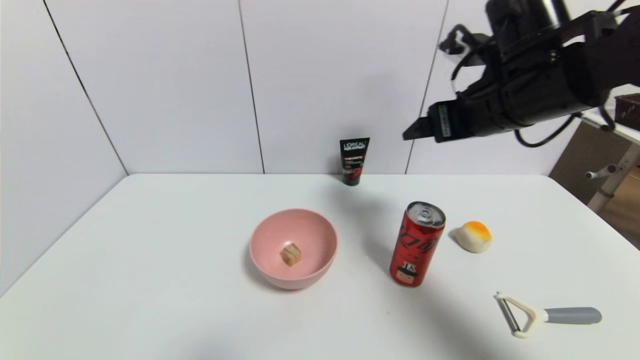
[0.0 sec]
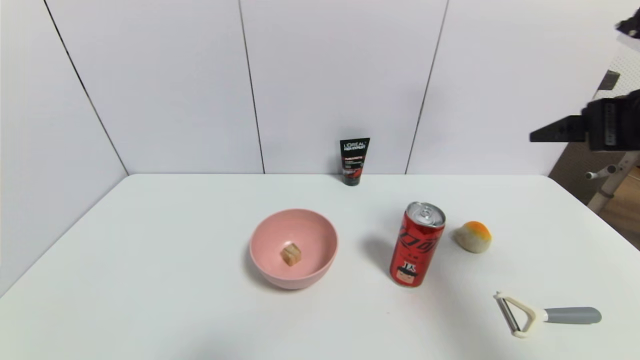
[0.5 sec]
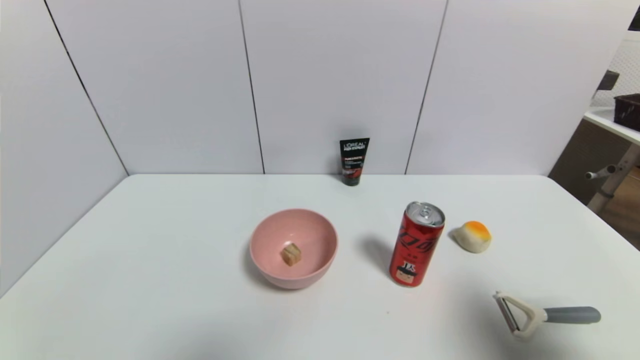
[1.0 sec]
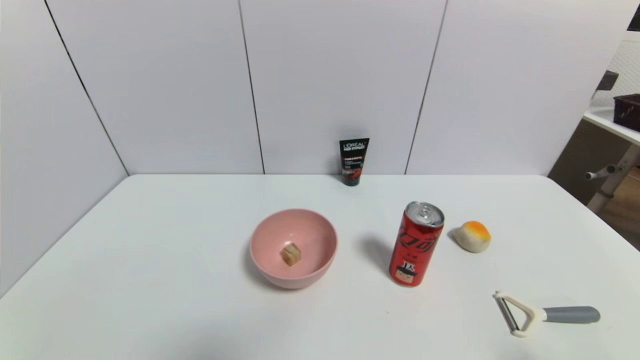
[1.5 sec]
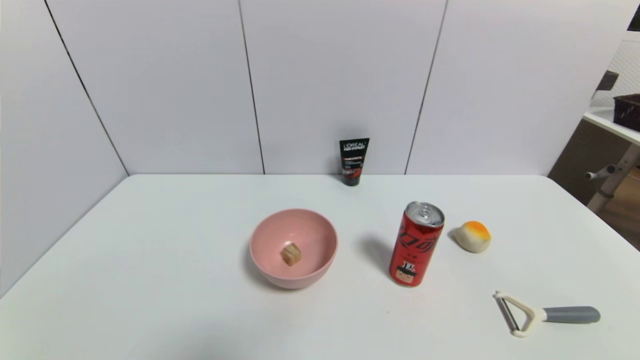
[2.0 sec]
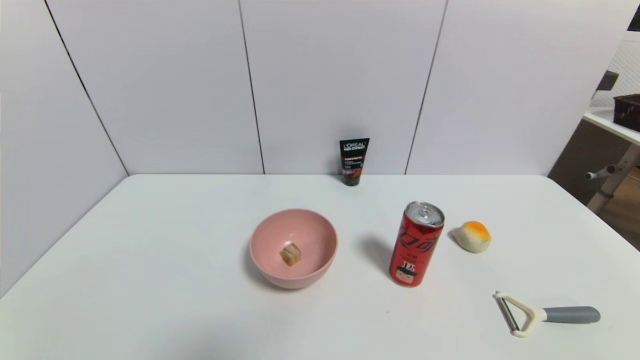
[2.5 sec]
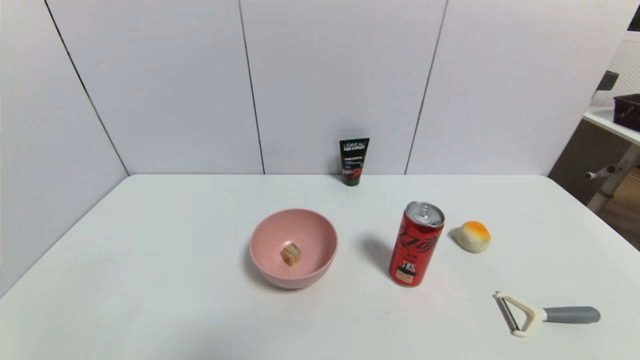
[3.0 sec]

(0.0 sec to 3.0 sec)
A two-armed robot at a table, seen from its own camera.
Task of the whole recording: use a gripper to pick the target object and place on the pink bowl.
0.0 sec - 1.5 sec: The right gripper goes some 35 cm backward and to the right.
